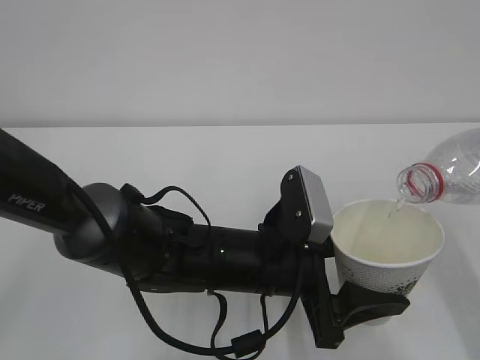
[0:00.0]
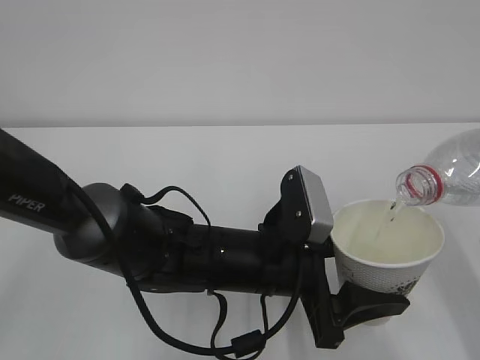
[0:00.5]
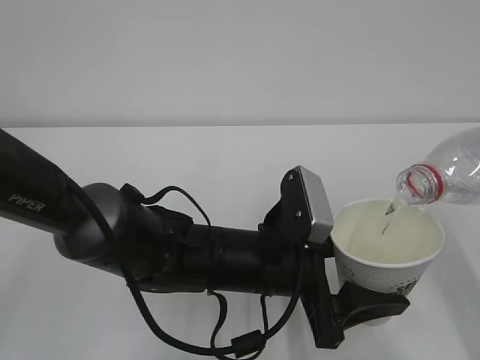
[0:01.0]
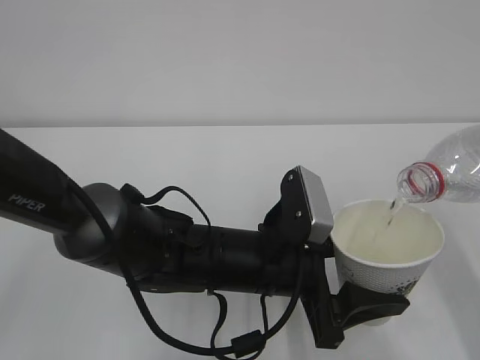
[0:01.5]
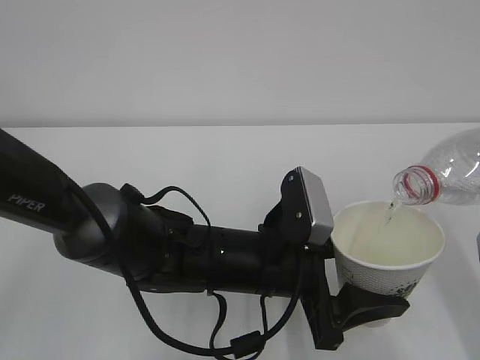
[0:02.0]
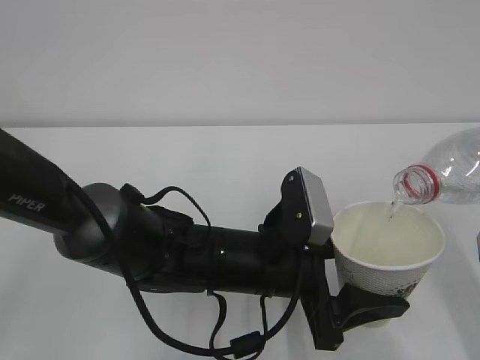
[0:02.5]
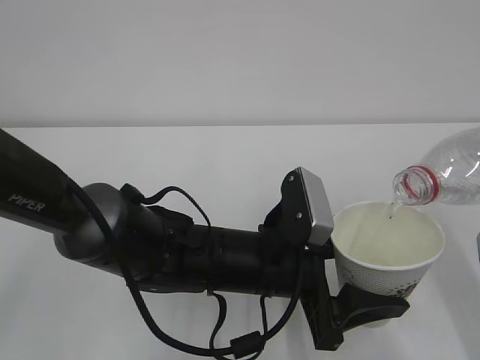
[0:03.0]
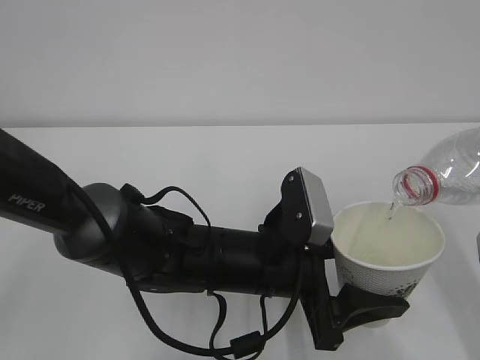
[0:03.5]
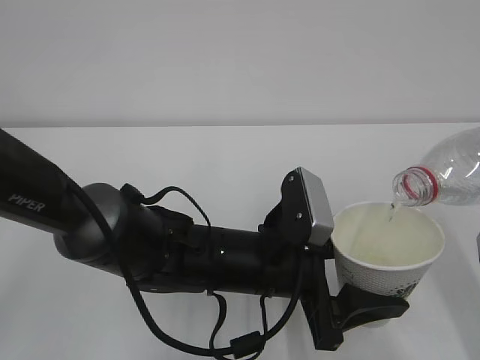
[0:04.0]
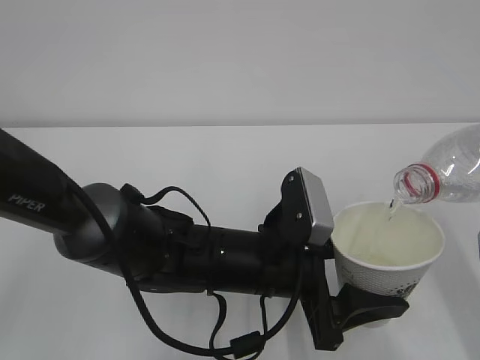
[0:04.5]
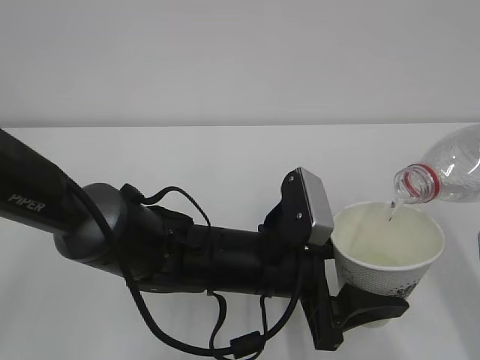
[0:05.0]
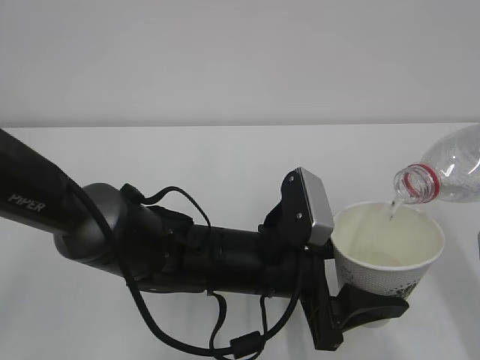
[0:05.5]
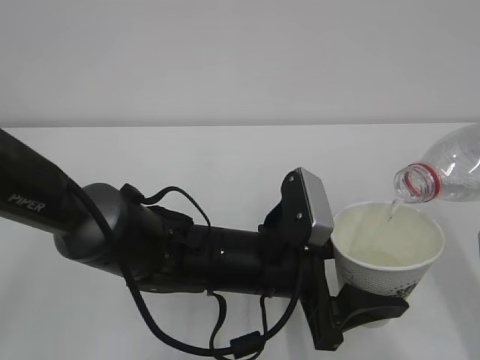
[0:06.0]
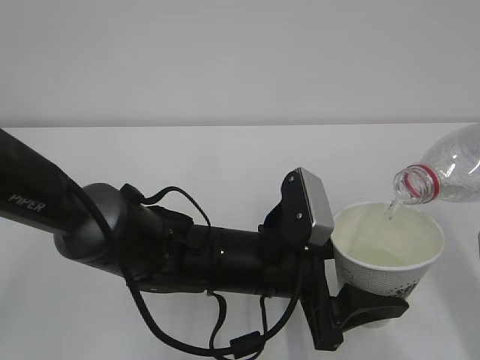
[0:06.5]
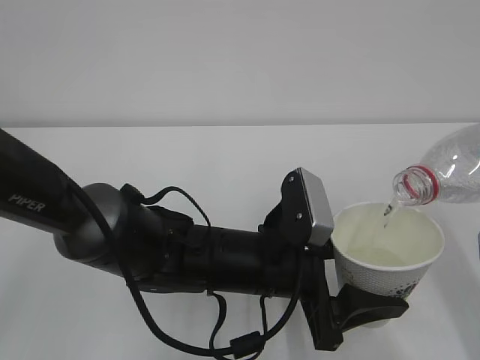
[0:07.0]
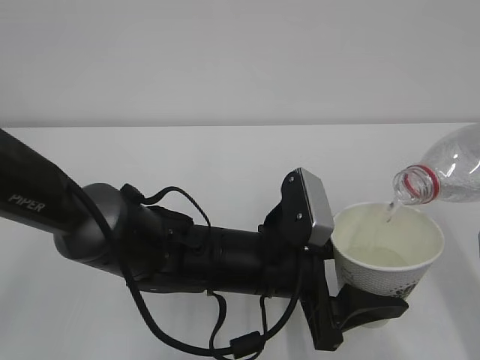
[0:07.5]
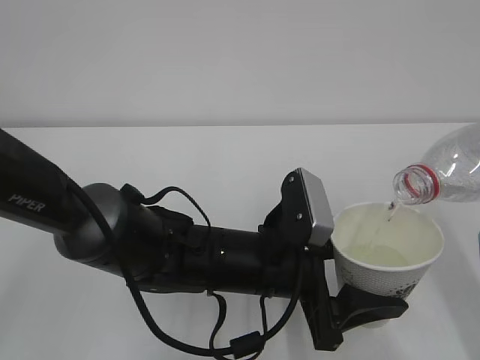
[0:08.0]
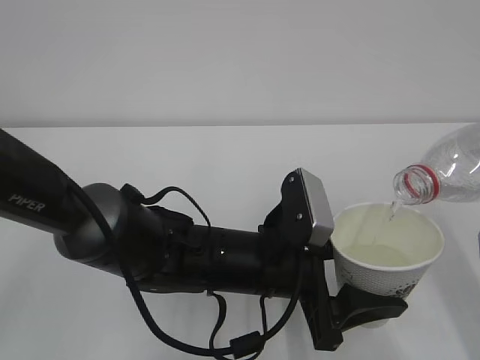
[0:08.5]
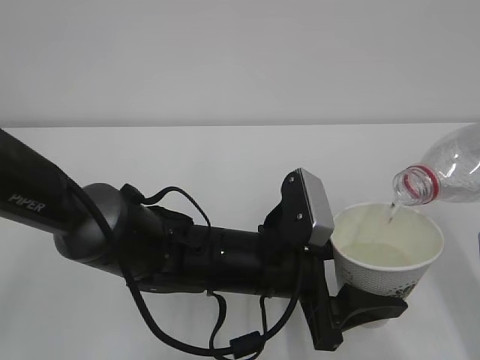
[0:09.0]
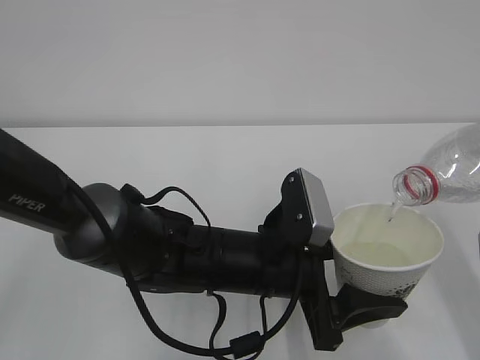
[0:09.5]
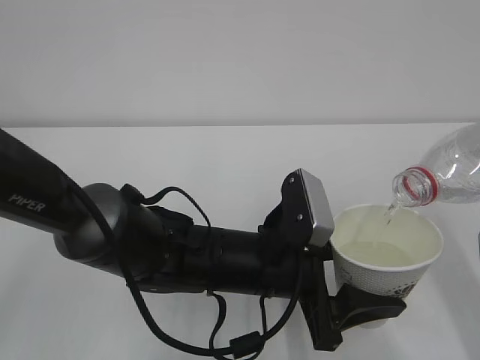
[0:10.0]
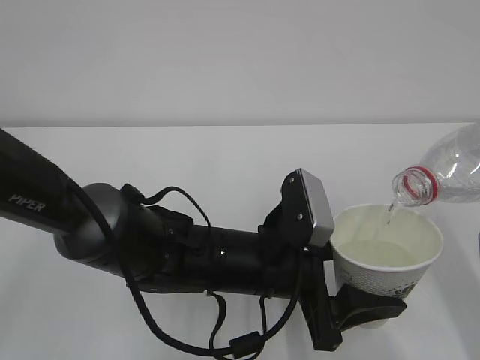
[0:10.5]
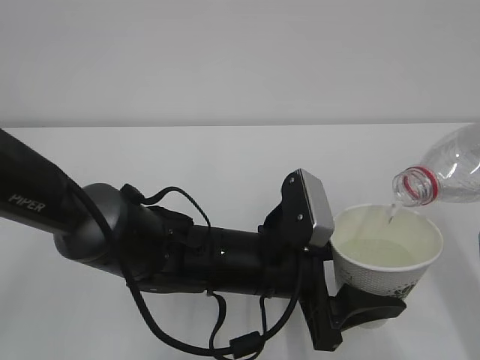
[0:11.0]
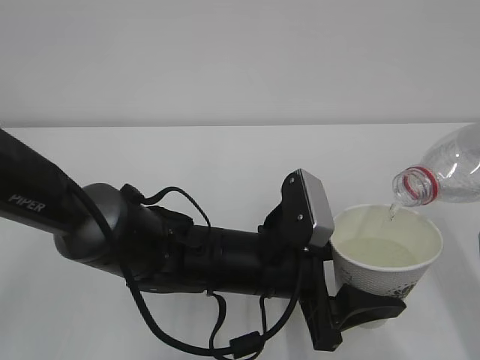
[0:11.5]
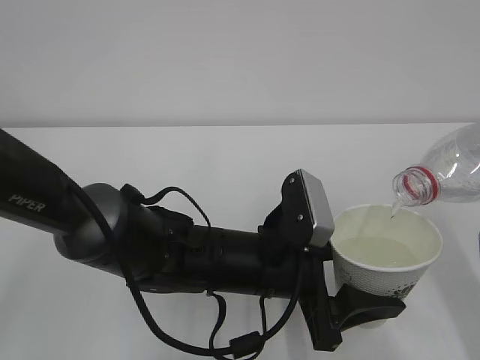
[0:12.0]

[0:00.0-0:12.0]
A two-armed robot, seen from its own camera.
0:00.0 to 0:08.0: Neither gripper changes place.
0:08.0 to 0:12.0: Neither gripper changes place.

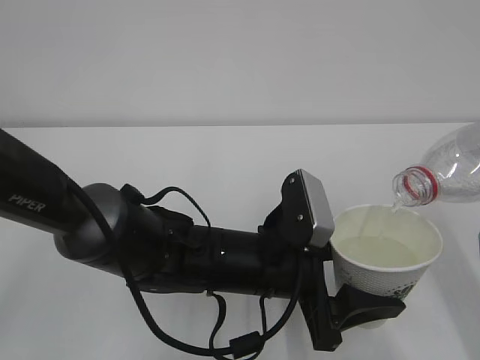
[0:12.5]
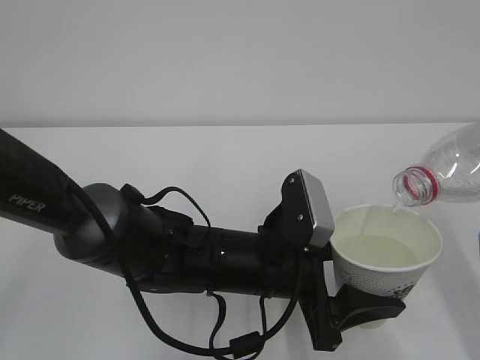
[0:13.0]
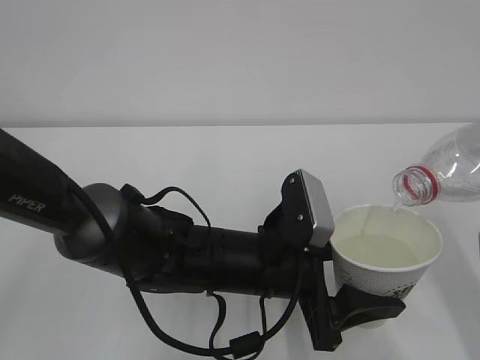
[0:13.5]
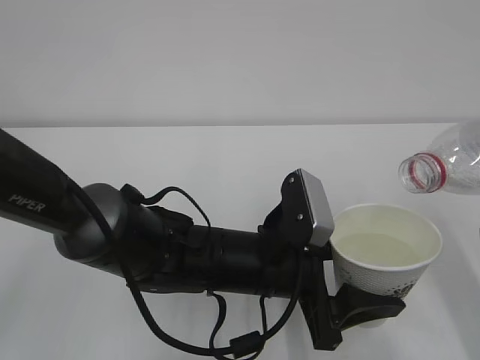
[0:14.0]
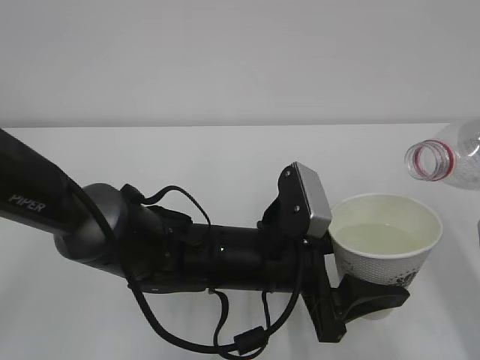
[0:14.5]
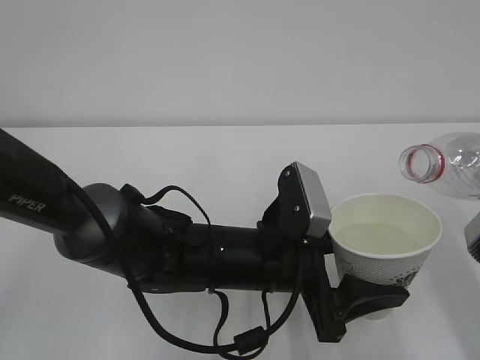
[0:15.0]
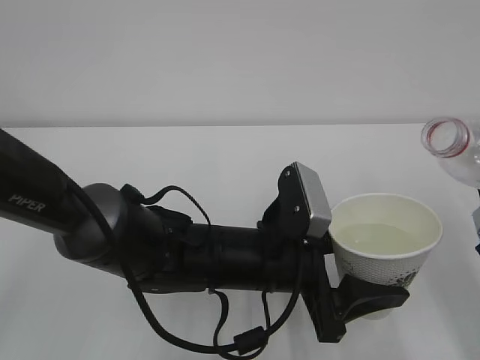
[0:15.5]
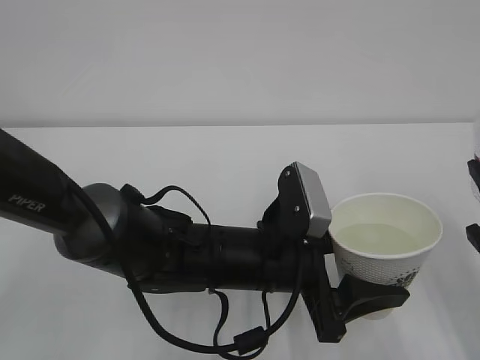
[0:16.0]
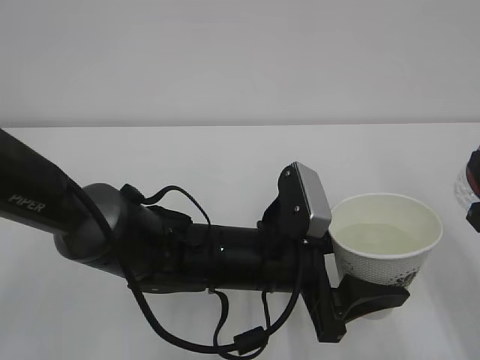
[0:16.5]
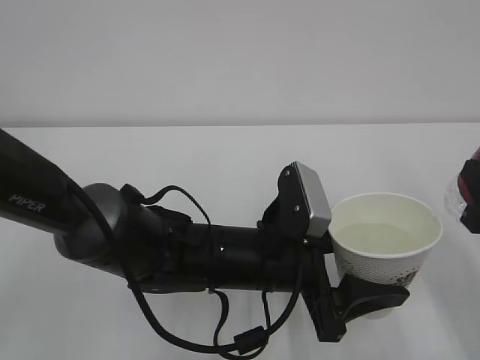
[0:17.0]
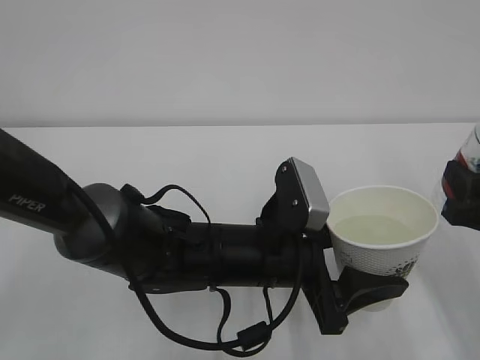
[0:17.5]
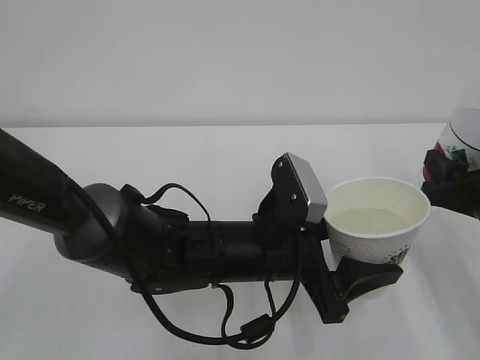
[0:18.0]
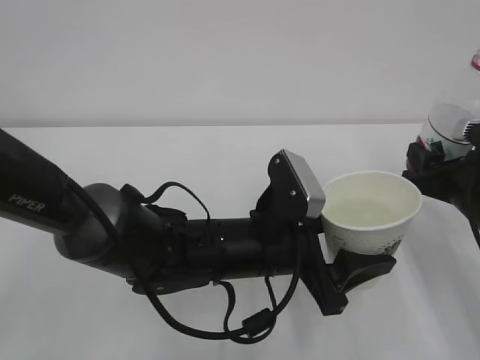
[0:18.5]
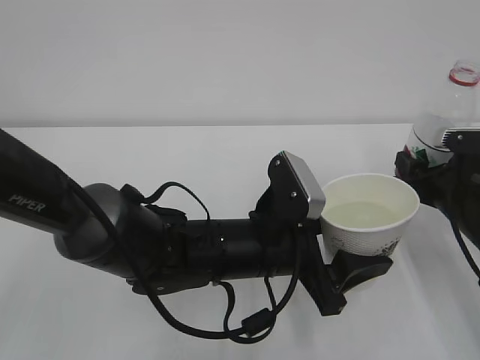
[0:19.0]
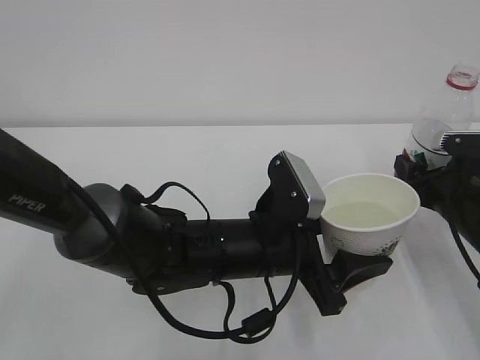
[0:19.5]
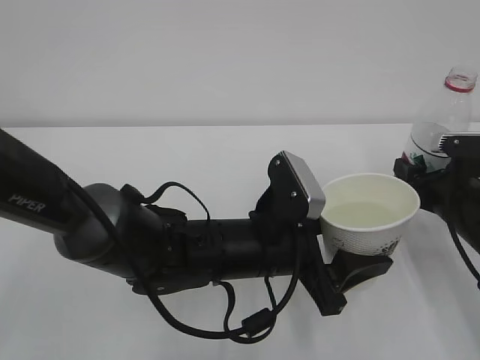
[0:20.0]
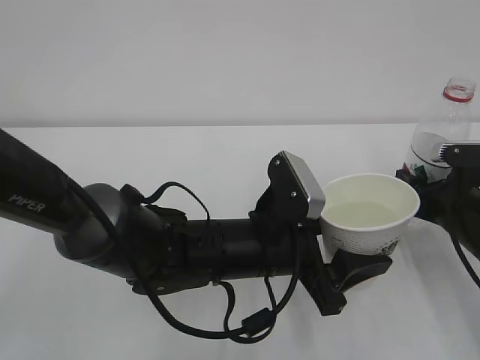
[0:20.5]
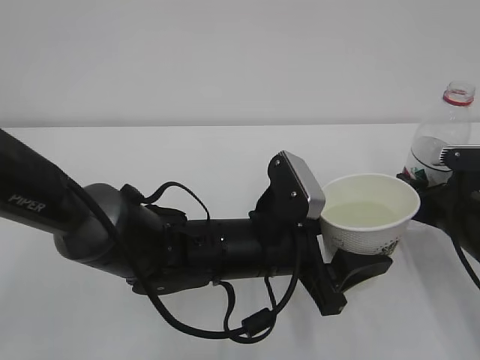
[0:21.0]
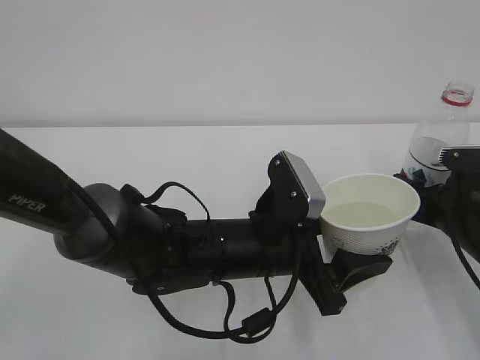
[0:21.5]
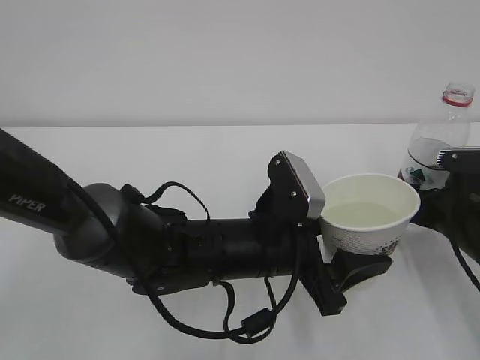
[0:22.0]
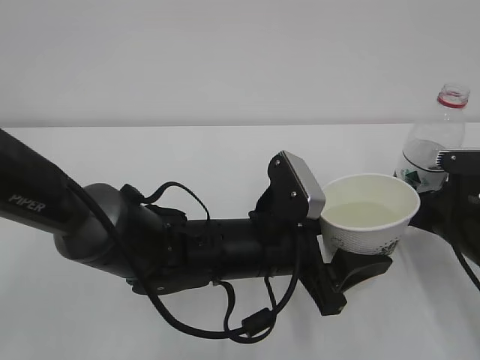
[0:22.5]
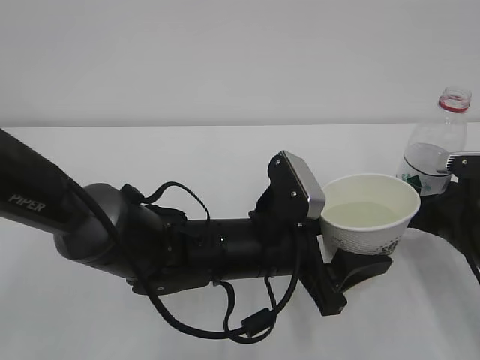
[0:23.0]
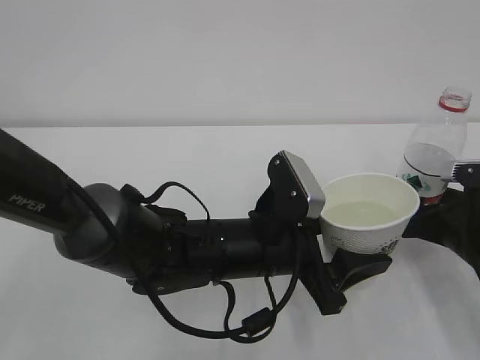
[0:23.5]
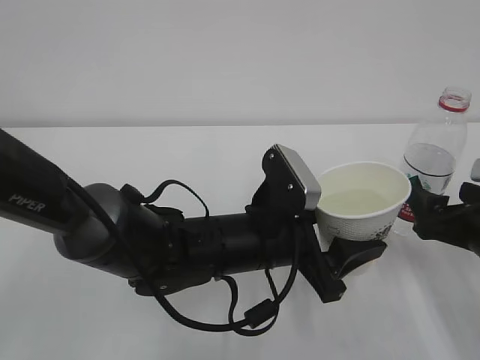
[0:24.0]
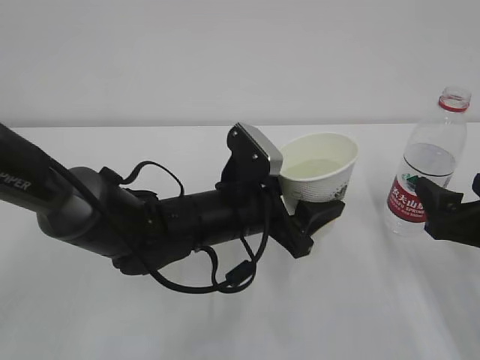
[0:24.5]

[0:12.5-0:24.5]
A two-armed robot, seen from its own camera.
0:12.5 to 0:14.5: The grippers make only small movements.
0:16.5 to 0:18.5: The right gripper moves forward and downward, approximately 10 cm.
0:18.5 to 0:20.5: The grippers move only a little.
0:20.5 to 0:22.5: The right gripper opens its fingers.
0:22.5 to 0:24.5: The left gripper changes place by approximately 5 cm. Meanwhile the right gripper moves backward, some 5 cm.

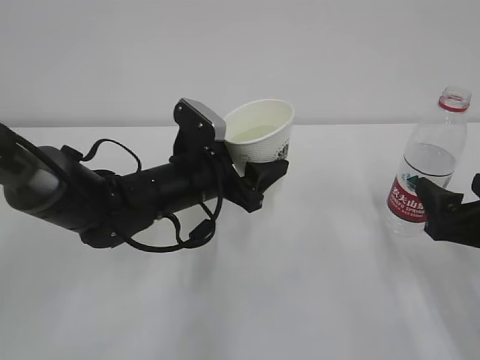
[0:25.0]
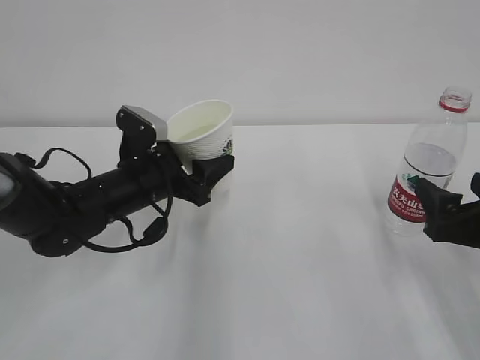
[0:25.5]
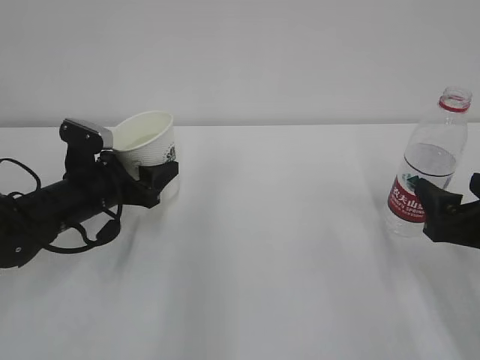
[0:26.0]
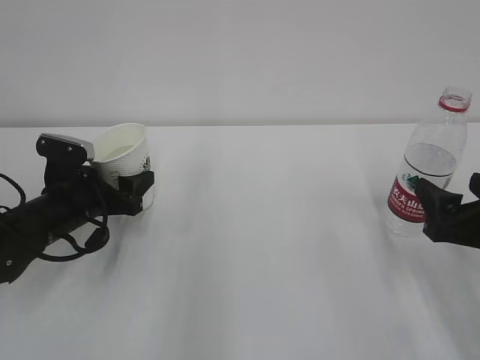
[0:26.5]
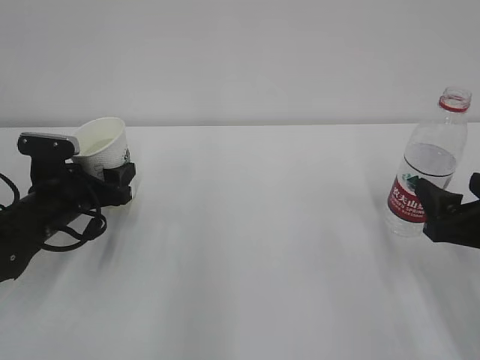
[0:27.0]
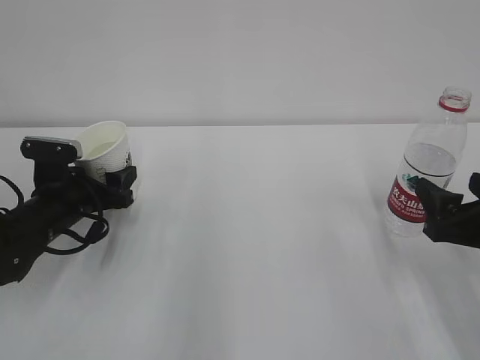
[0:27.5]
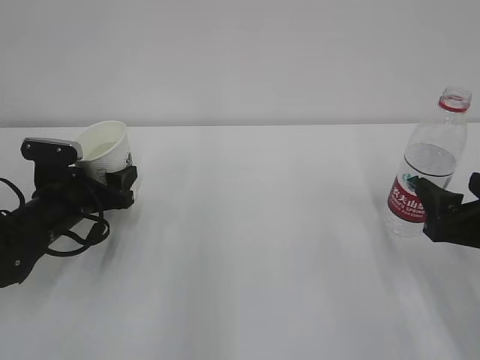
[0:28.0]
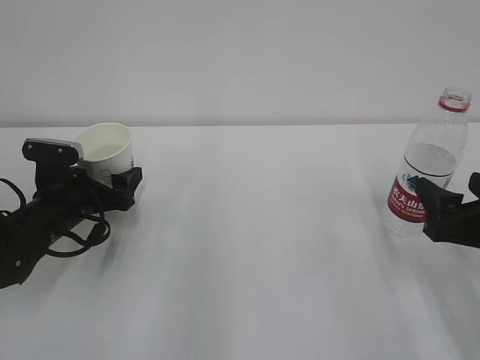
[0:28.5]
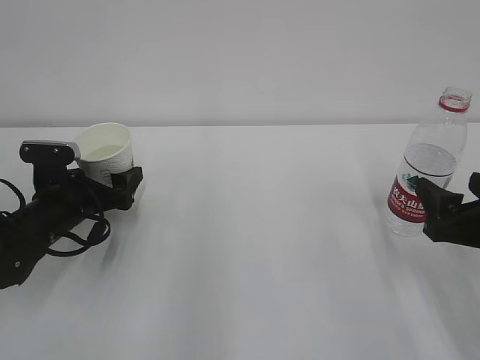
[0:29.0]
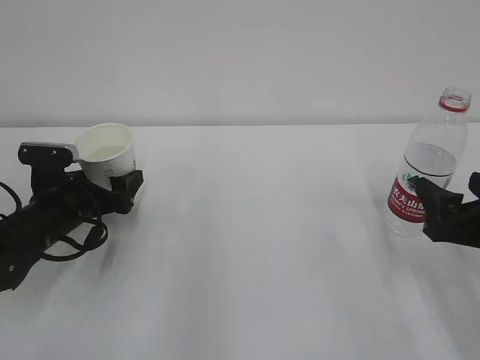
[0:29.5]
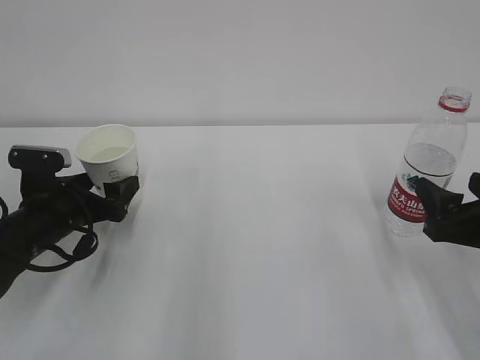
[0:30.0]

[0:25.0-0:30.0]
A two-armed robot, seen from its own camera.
0:25.0 to 0:27.5: The left gripper goes about 15 cm to the left.
0:27.5 to 0:30.0: The left gripper opens up.
